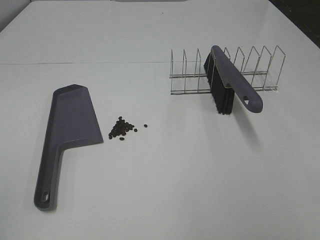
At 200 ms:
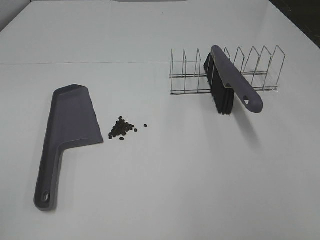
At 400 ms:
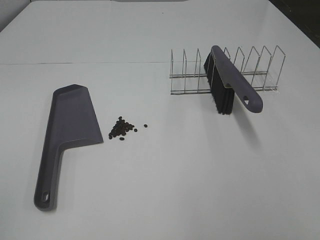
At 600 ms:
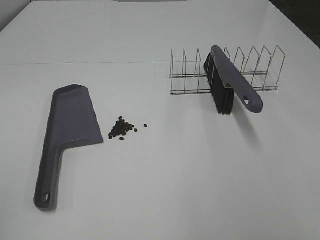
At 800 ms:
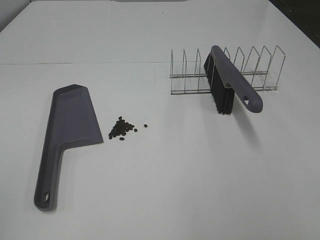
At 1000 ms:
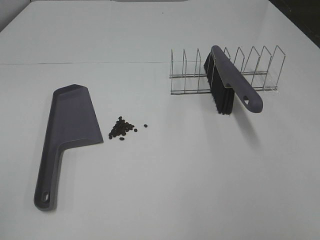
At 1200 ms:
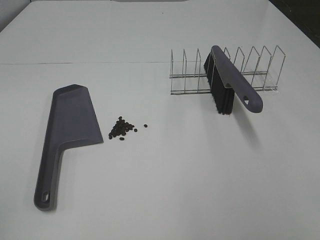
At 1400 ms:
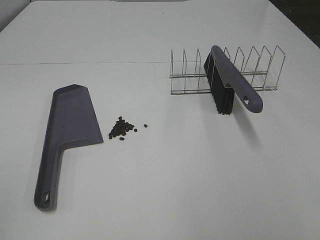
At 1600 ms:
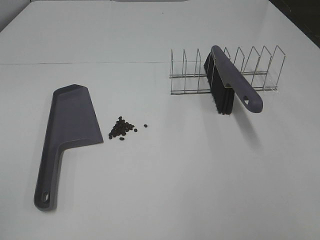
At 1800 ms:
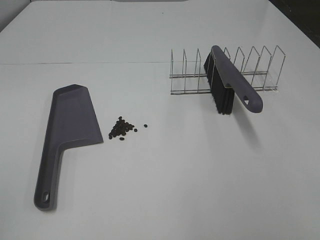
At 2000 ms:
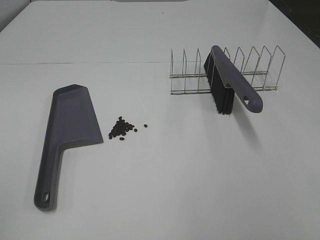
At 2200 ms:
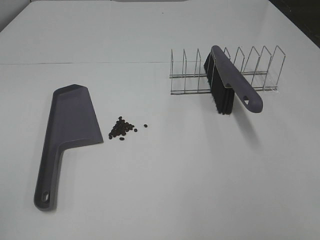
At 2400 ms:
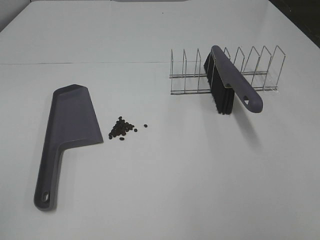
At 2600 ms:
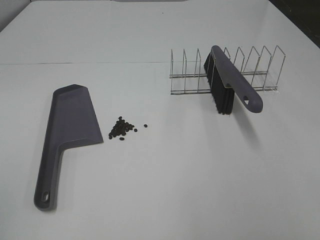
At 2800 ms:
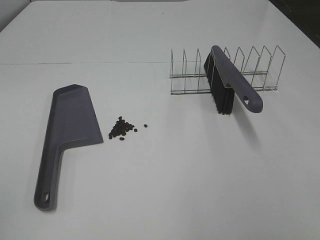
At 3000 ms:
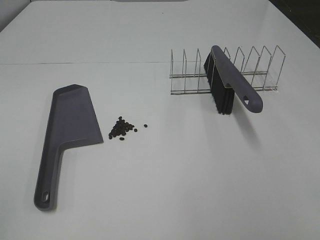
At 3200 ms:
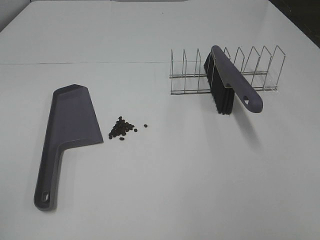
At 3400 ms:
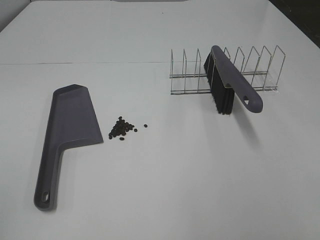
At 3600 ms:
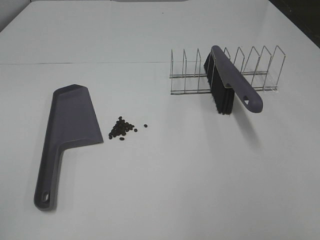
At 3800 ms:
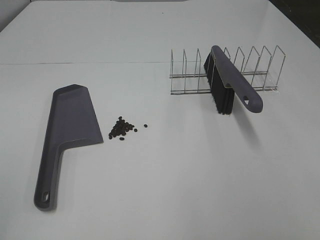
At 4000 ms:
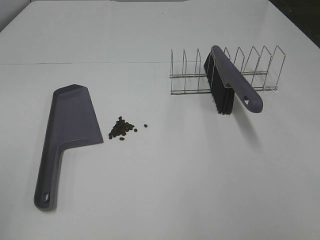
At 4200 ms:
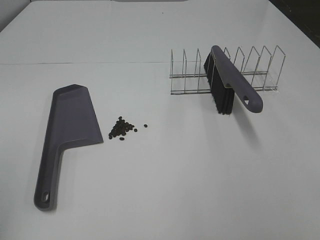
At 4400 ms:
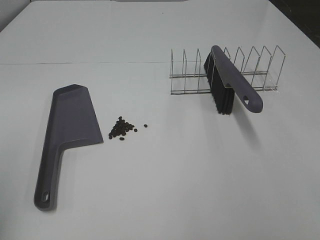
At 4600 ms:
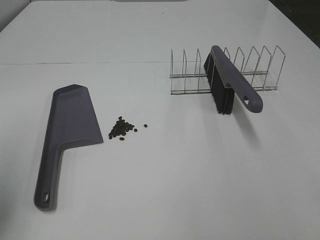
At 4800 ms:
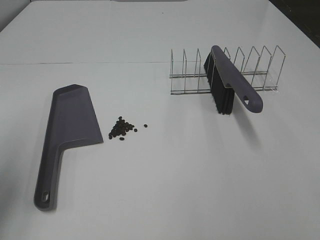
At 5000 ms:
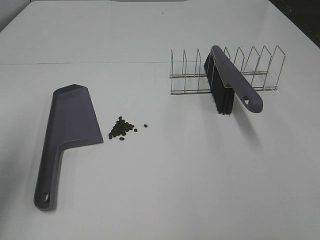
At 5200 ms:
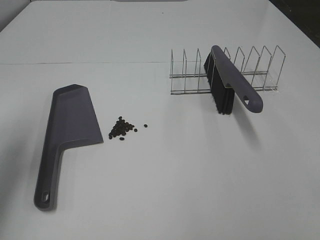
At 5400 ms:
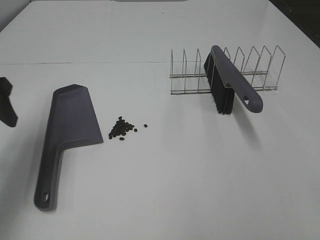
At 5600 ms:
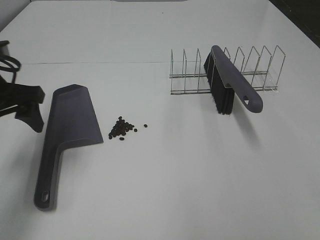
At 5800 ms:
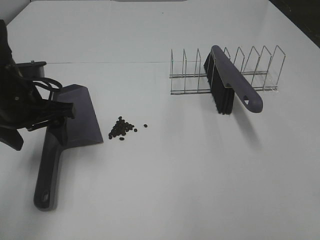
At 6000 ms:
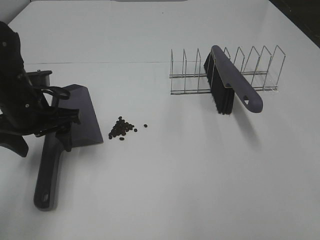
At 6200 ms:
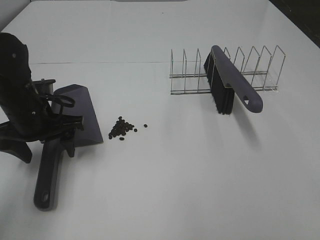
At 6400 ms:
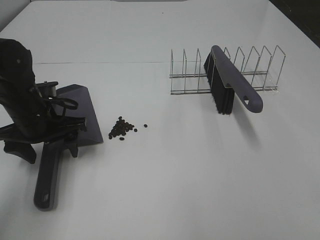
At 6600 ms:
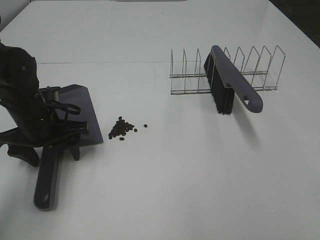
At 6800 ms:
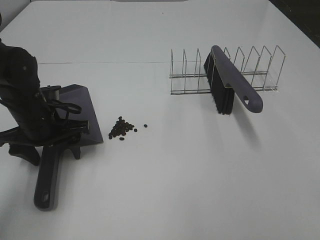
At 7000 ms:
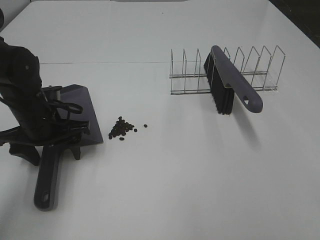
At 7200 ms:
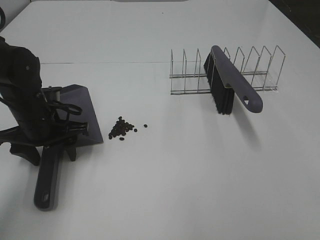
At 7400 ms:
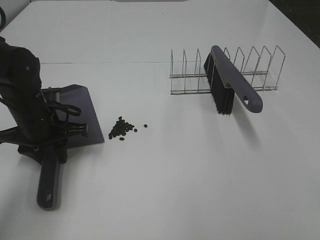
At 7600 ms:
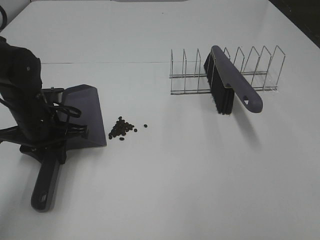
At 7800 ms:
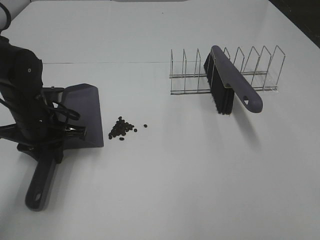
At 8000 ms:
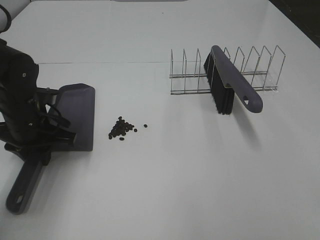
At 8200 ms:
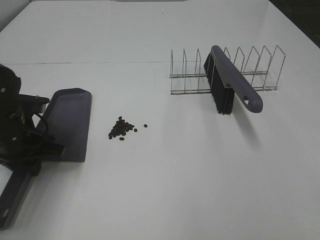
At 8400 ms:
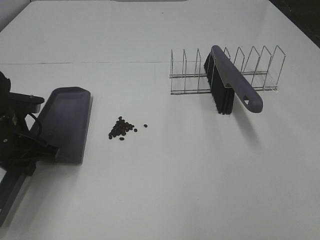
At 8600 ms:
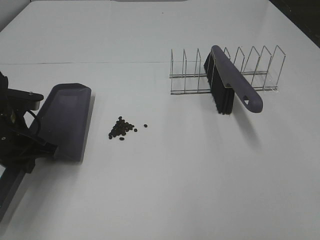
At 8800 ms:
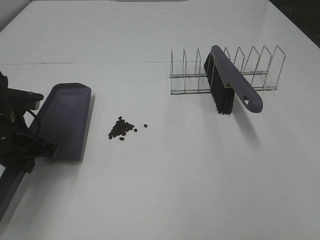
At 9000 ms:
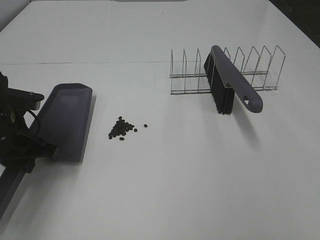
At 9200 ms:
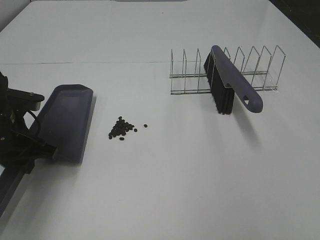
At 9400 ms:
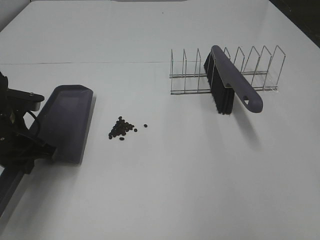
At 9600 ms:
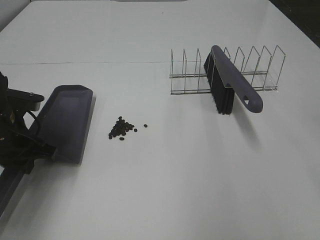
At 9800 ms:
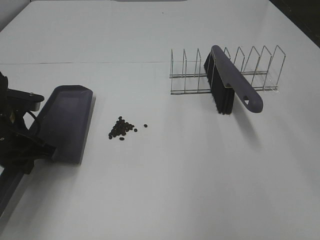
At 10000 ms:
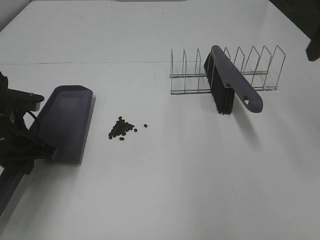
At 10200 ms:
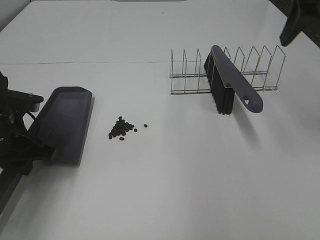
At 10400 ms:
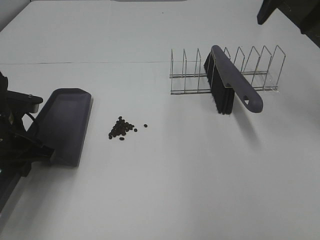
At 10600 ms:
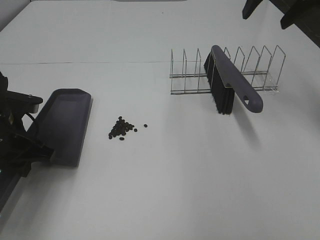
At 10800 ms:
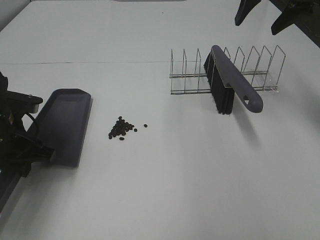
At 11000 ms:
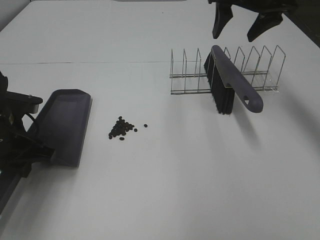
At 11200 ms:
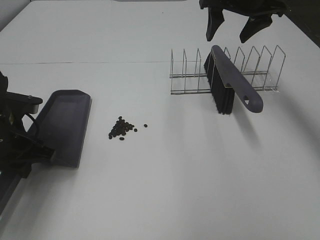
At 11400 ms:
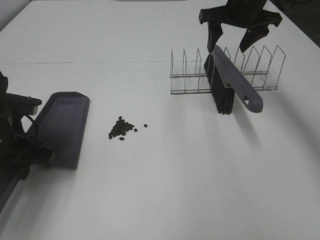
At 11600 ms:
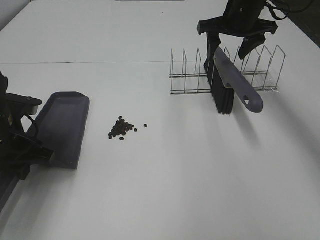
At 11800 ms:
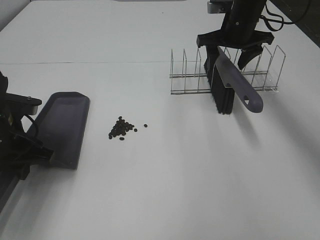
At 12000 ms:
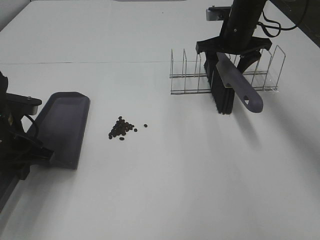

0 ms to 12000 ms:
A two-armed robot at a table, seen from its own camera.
Task of the whole recording: Sweep Coffee Bean.
Step, 0 ms to 7400 ms: Left hand: grab the dustpan.
0 ms to 3000 ms: Neither gripper changes place.
4400 ms to 6000 ms: The left gripper moves forward, downward and to the right, roughly 30 cm.
6000 ms to 7600 ms: The left gripper moves downward, about 5 cm, and closes up.
7600 ms to 9000 ms: The left gripper changes place by some 5 cm.
9000 ms to 10400 ms: The right gripper moves forward, about 35 cm.
10400 ms to 12000 ms: The right gripper moves downward and forward, about 20 cm.

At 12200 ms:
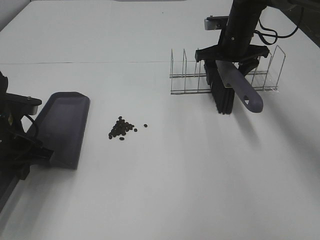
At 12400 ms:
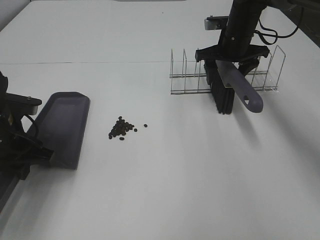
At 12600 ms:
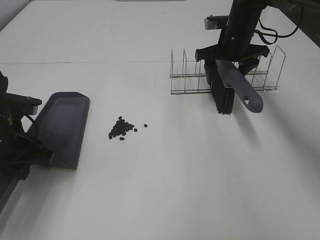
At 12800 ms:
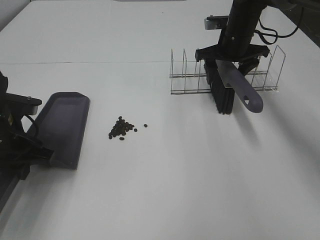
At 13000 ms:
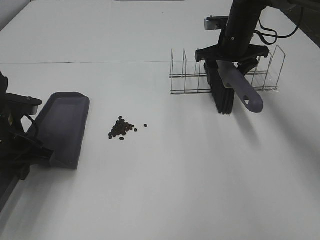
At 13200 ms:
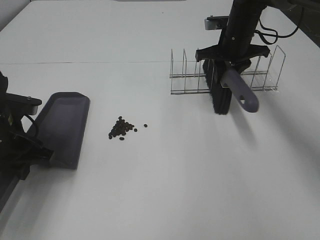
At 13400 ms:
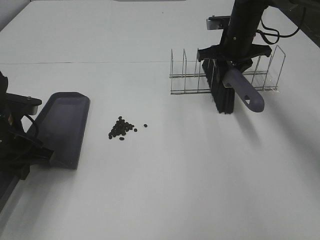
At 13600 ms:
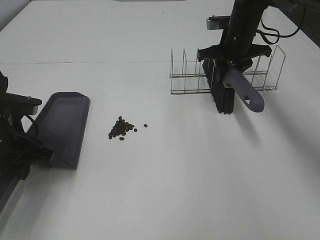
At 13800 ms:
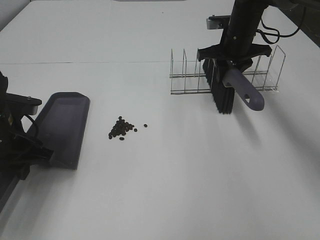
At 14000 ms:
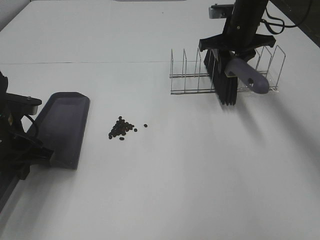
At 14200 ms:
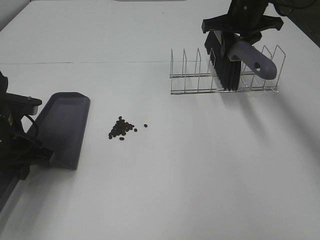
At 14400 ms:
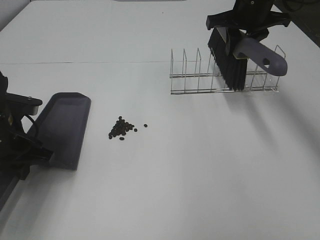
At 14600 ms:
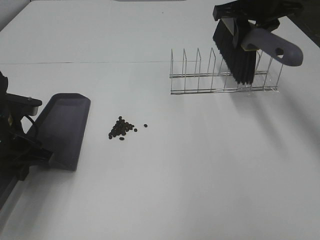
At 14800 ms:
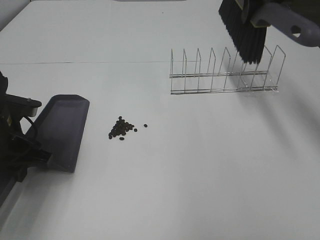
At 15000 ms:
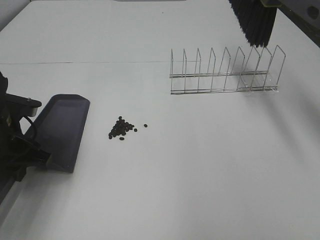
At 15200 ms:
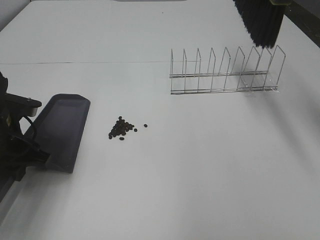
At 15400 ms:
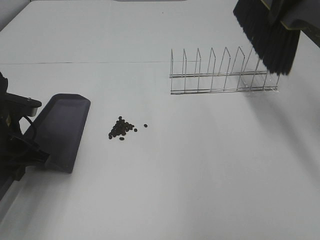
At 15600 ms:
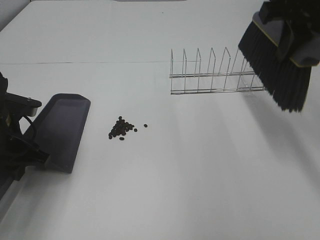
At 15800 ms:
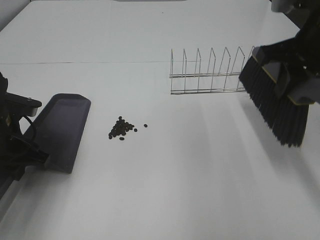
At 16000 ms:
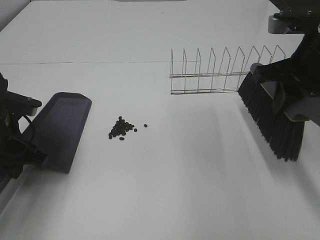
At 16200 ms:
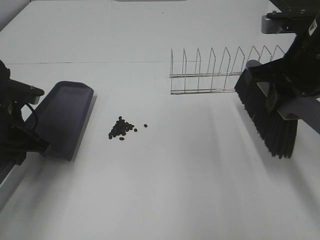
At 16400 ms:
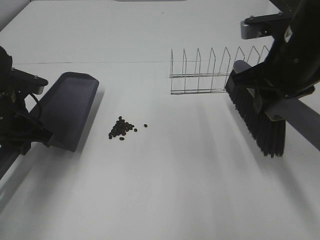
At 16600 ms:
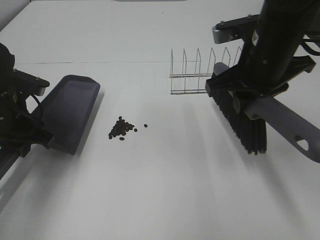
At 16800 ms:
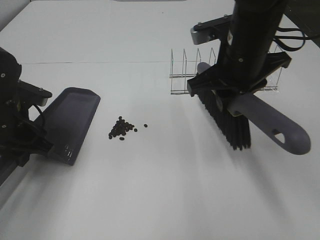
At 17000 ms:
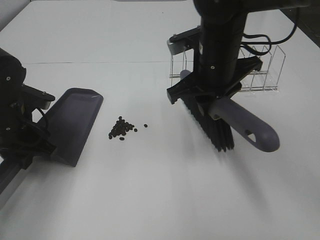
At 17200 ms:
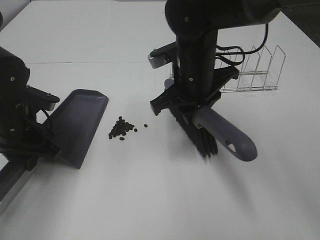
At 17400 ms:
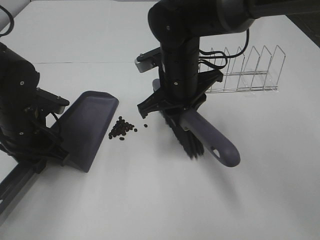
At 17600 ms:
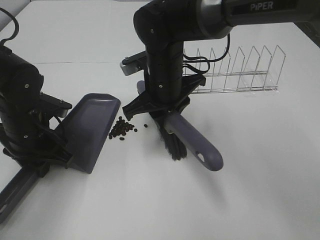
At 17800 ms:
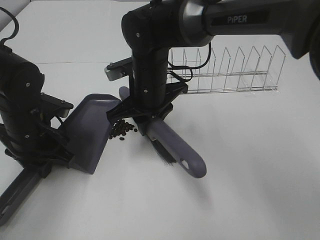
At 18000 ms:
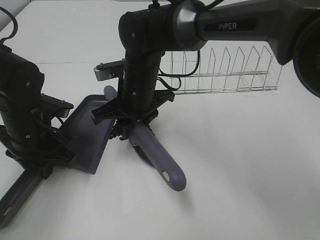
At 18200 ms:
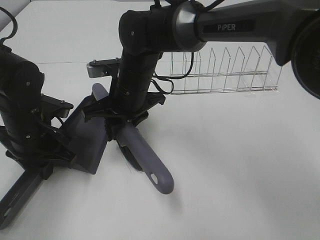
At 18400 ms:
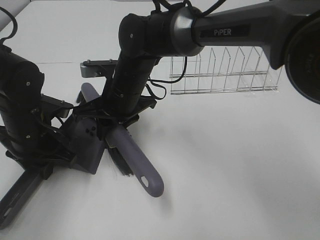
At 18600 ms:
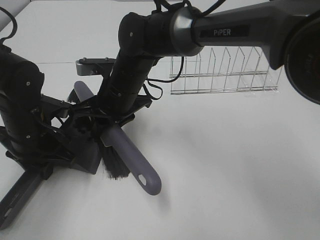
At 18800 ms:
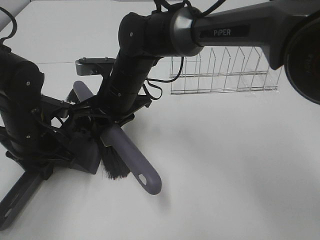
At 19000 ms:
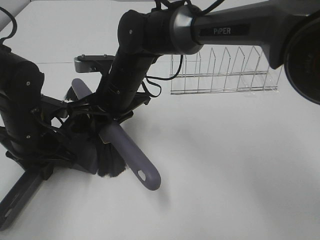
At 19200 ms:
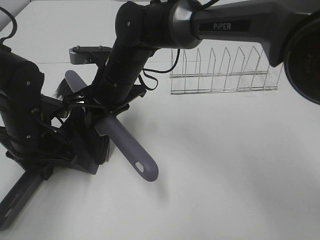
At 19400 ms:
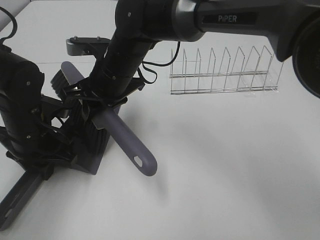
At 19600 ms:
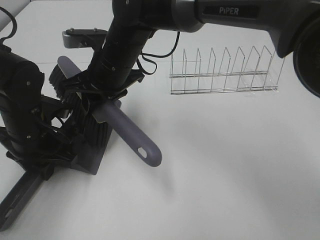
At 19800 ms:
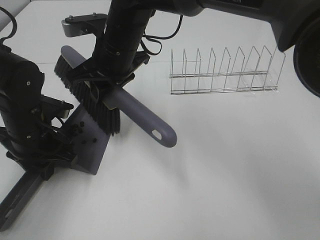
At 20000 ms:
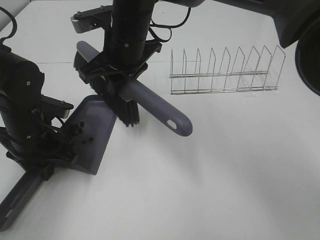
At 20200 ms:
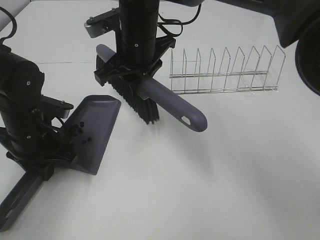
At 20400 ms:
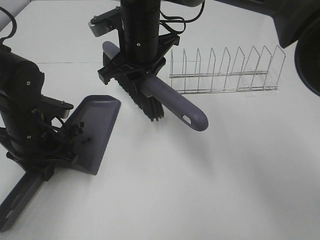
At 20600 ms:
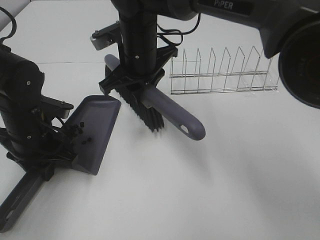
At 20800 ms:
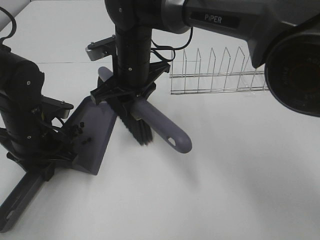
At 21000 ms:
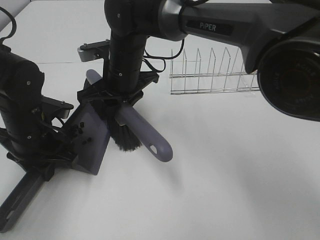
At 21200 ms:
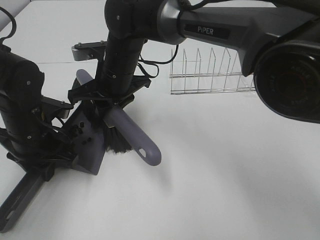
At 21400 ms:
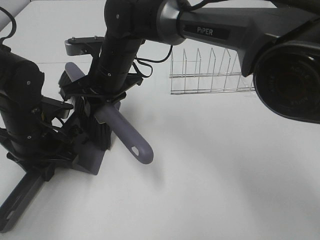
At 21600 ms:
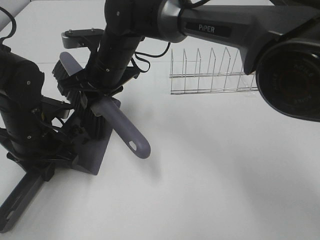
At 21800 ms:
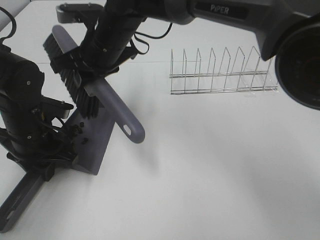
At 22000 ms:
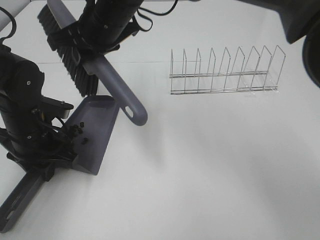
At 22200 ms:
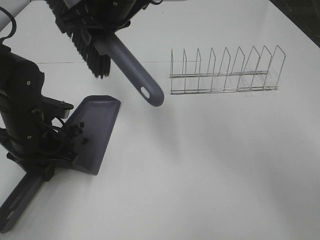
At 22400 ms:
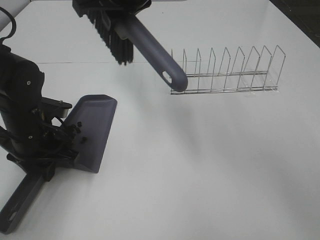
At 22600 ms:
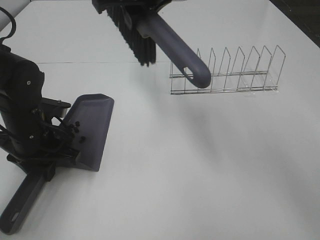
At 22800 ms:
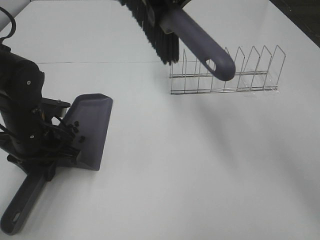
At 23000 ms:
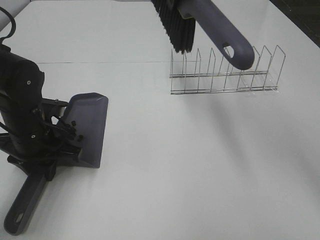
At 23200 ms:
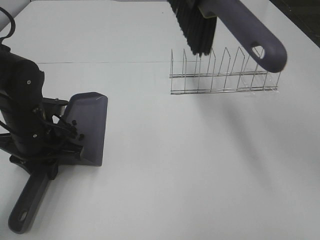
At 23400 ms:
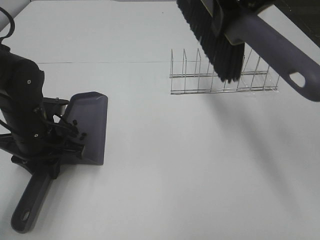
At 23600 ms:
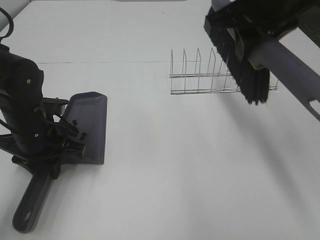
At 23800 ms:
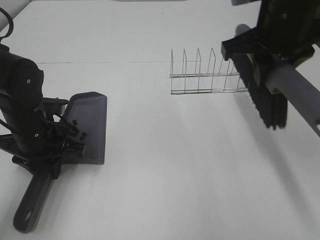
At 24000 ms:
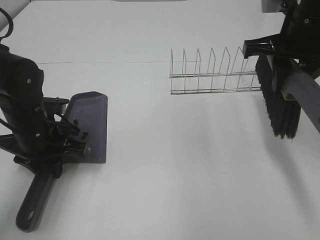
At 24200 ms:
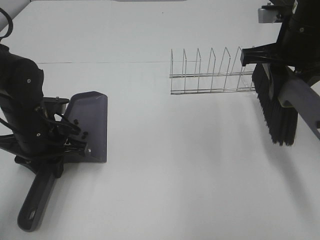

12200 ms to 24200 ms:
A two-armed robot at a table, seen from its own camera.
Task of the whole recording: Sweep Coffee Bean.
Step, 13600 ms to 21600 ms: Right hand:sweep the coffee beans into the dustpan.
12200 ms to 13800 ms: The right gripper closes up.
13800 ms to 15200 ms: The right gripper moves upward and backward, some 25 cm.
15200 ms to 16600 ms: The right gripper moves downward, backward and to the left, approximately 15 cm.
16600 ms to 18200 ms: The left gripper shifts by about 5 cm, while the right gripper shifts roughly 20 cm to the left and downward.
18200 ms to 19800 ms: The right gripper heads upward, covering some 5 cm.
19800 ms to 21200 ms: The right gripper is displaced downward by some 5 cm.
21200 ms to 22600 ms: The right gripper moves upward, roughly 15 cm.
22600 ms to 24200 ms: The right gripper heads to the right, covering roughly 20 cm.
